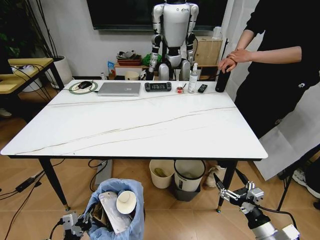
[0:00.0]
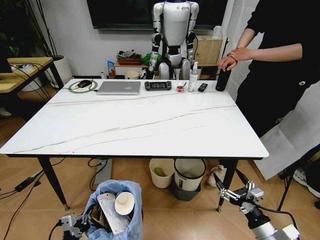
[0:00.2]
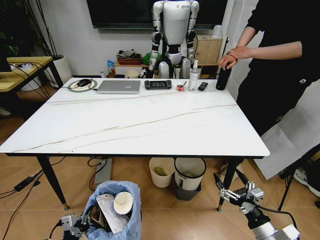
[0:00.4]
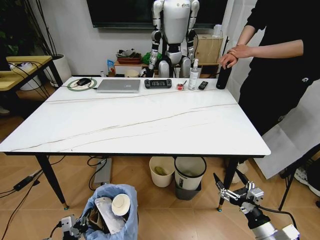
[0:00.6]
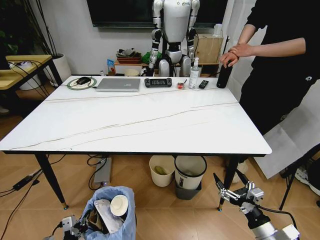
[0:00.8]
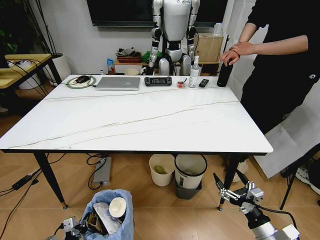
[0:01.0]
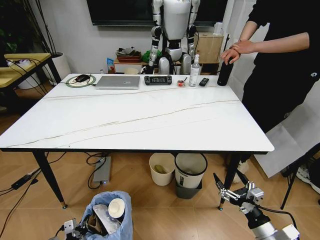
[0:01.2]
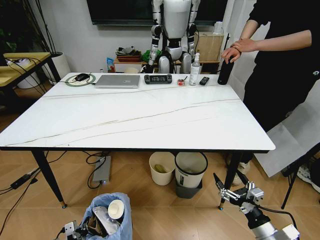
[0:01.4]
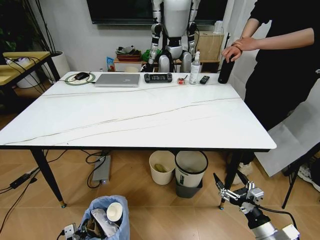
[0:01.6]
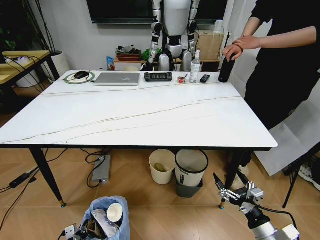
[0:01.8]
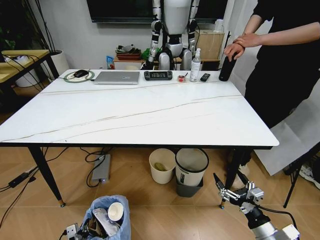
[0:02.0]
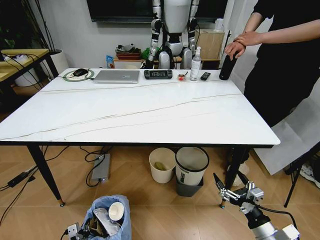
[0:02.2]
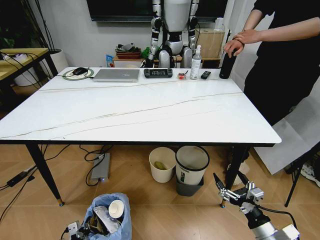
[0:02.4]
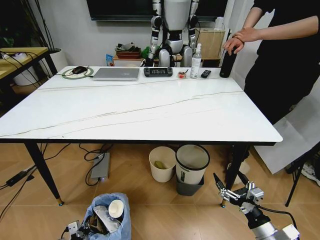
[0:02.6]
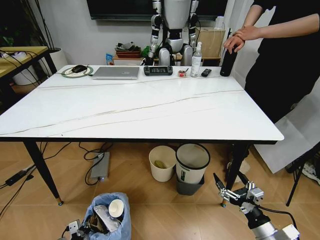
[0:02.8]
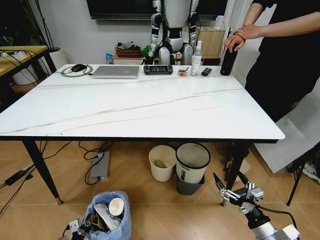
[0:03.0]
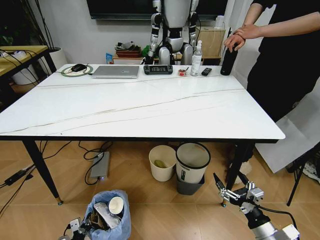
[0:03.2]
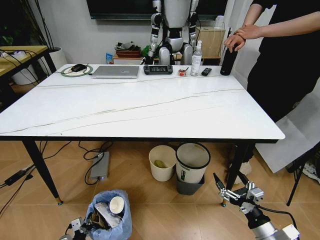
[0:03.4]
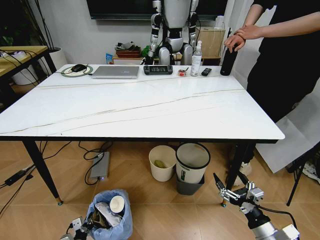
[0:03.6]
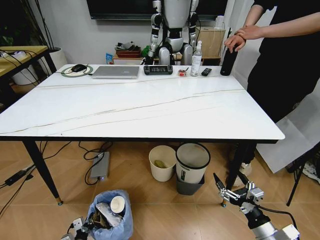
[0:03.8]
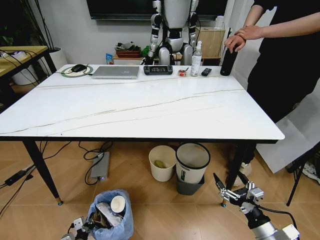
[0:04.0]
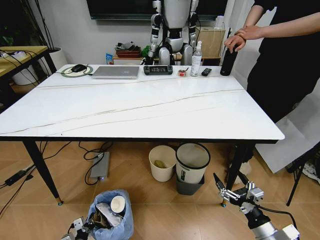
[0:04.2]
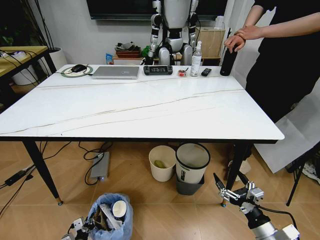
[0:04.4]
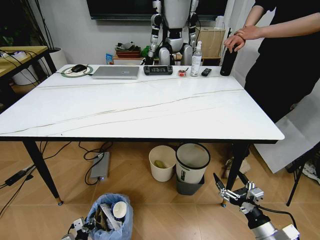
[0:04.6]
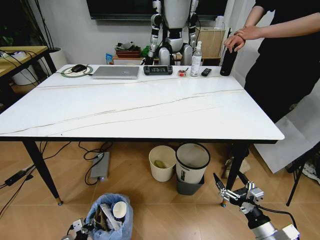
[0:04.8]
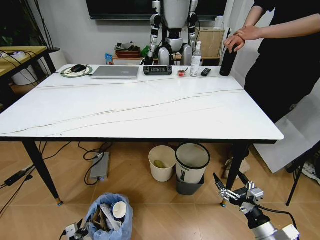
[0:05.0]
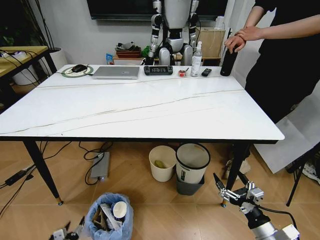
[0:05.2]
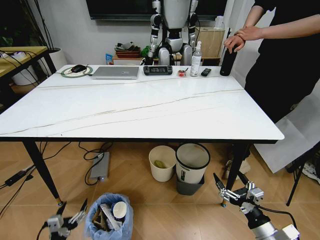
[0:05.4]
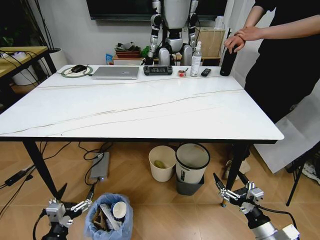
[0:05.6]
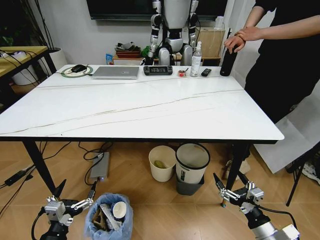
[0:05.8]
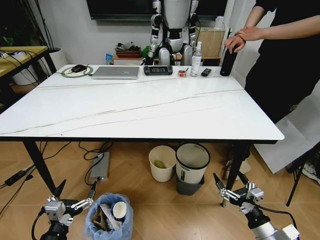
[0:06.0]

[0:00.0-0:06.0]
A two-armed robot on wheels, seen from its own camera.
Task of the whole recording: Pick up the trash bin and place the trash from the table into it.
0:00.0 to 0:01.6: The left gripper heads downward, covering about 15 cm.
0:03.0 to 0:04.4: The grippers make only small movements.
0:04.4 to 0:06.0: The left gripper heads upward, covering roughly 30 cm, and opens up.

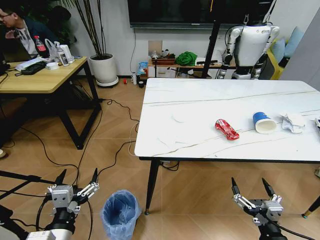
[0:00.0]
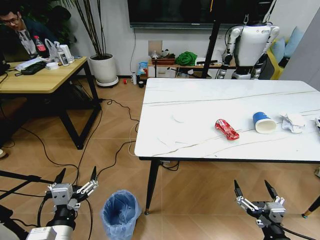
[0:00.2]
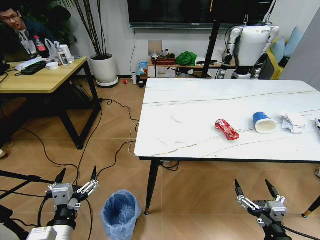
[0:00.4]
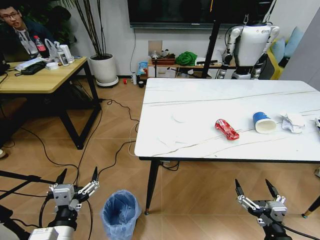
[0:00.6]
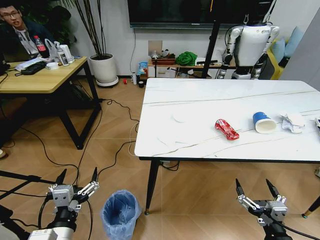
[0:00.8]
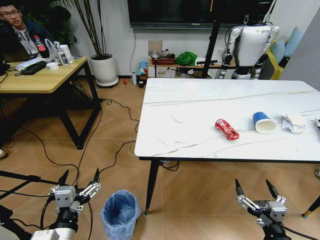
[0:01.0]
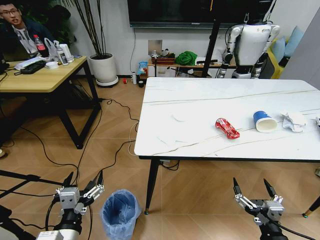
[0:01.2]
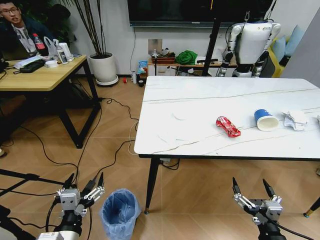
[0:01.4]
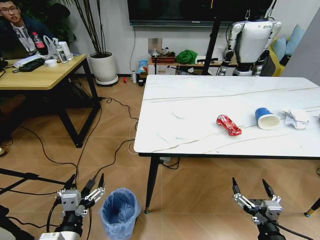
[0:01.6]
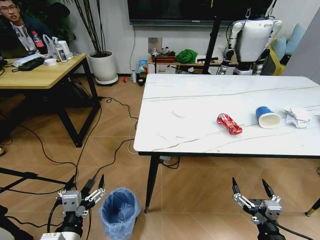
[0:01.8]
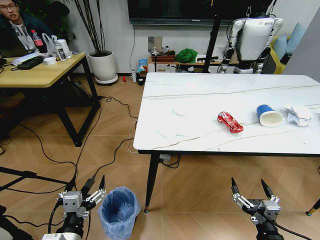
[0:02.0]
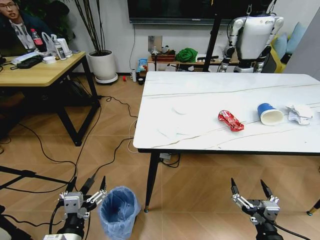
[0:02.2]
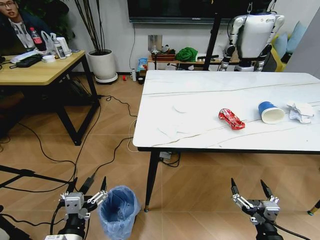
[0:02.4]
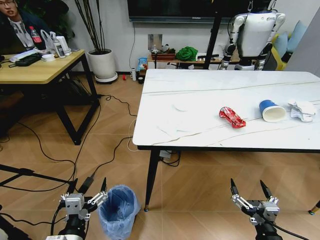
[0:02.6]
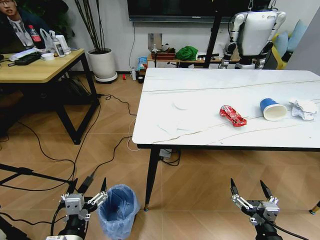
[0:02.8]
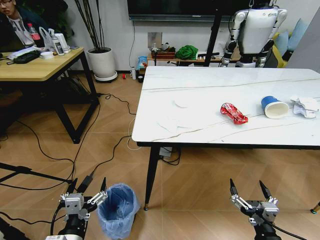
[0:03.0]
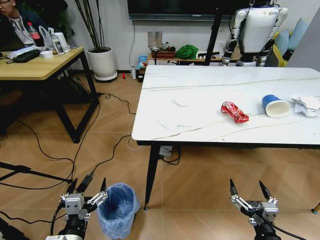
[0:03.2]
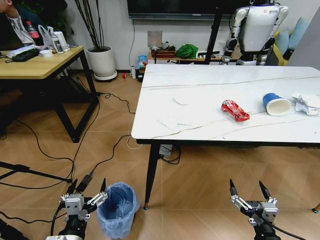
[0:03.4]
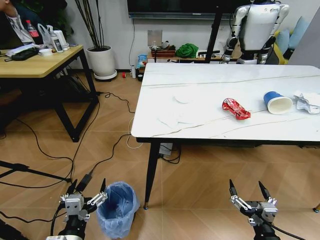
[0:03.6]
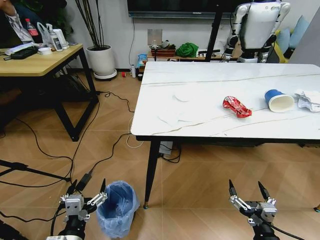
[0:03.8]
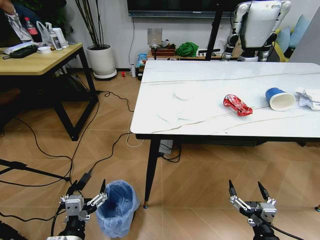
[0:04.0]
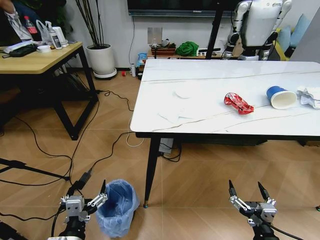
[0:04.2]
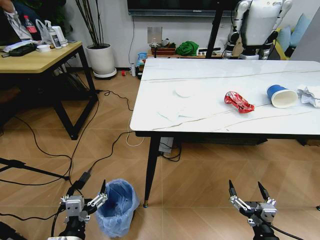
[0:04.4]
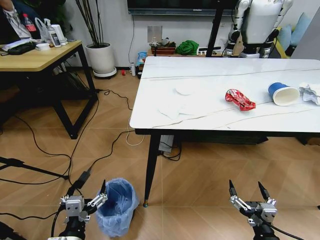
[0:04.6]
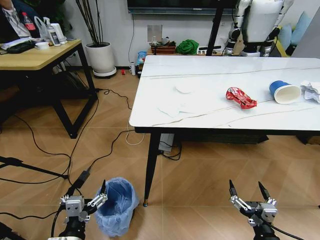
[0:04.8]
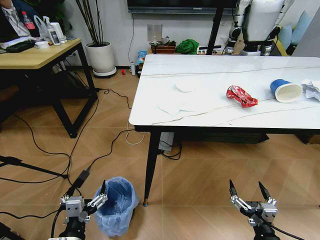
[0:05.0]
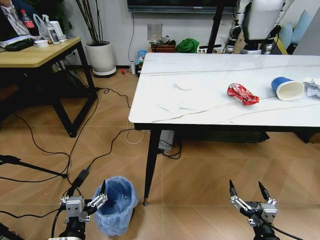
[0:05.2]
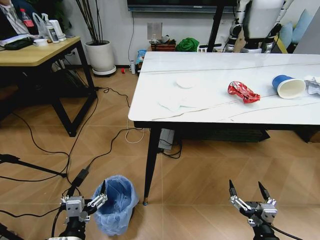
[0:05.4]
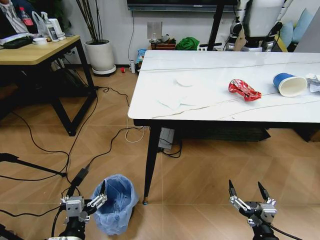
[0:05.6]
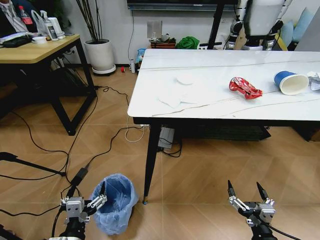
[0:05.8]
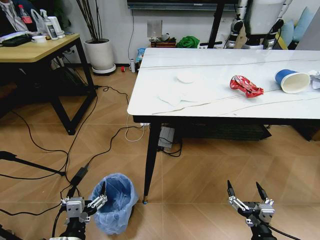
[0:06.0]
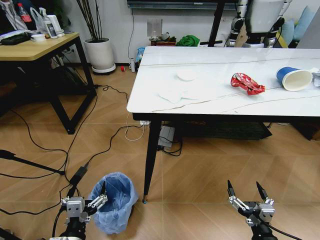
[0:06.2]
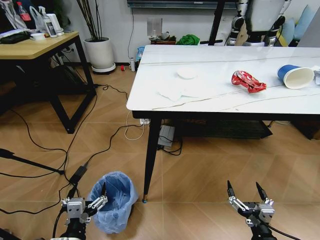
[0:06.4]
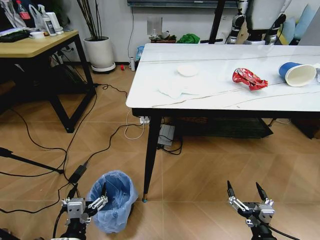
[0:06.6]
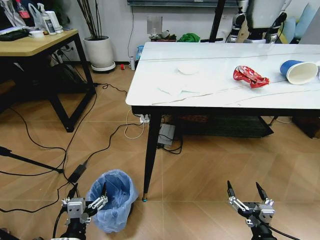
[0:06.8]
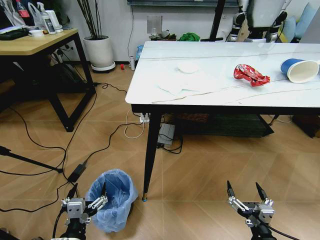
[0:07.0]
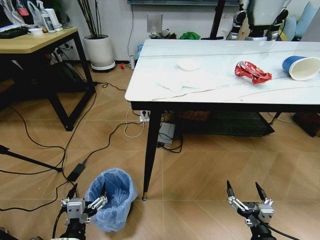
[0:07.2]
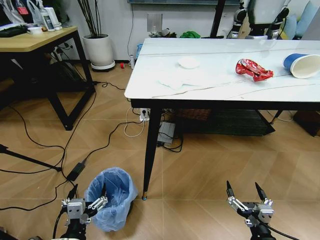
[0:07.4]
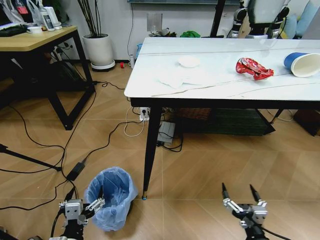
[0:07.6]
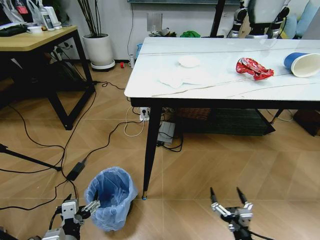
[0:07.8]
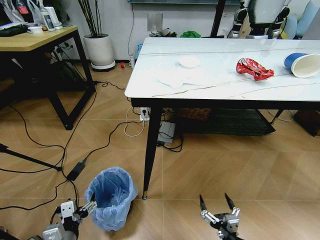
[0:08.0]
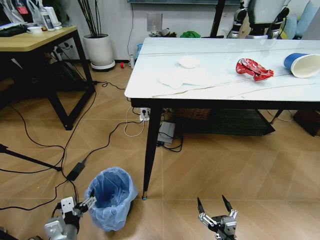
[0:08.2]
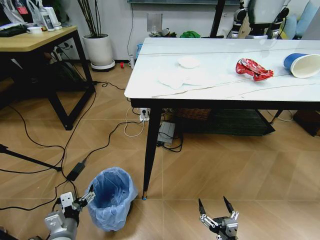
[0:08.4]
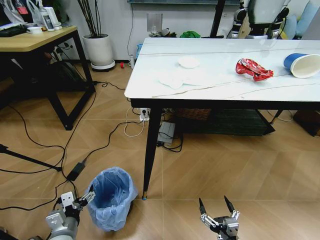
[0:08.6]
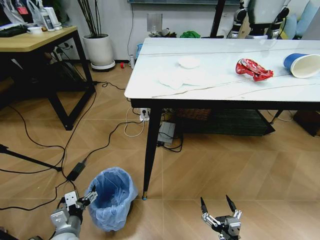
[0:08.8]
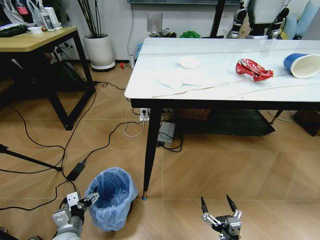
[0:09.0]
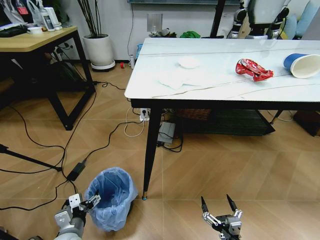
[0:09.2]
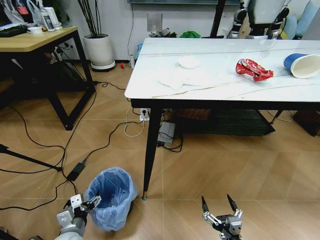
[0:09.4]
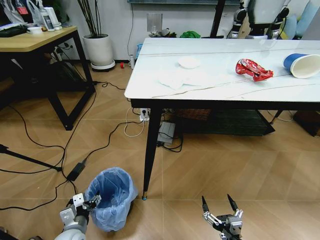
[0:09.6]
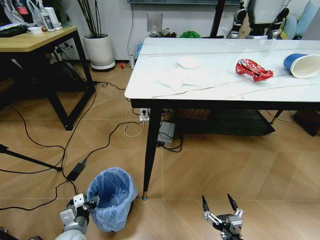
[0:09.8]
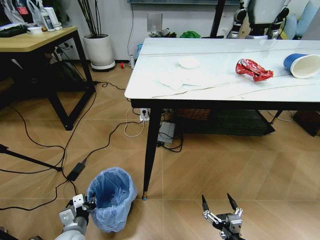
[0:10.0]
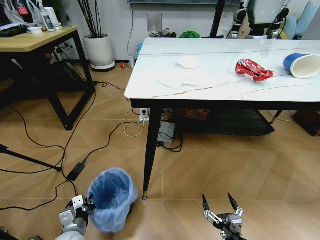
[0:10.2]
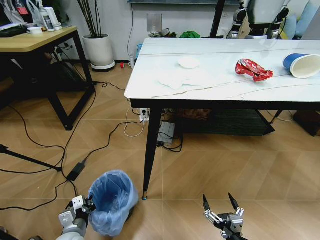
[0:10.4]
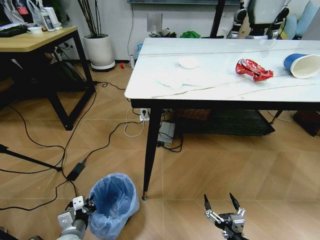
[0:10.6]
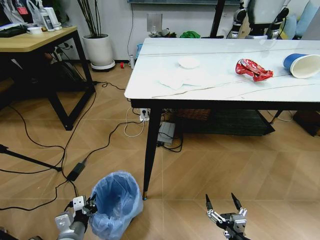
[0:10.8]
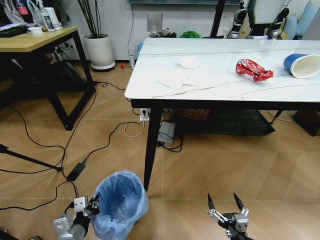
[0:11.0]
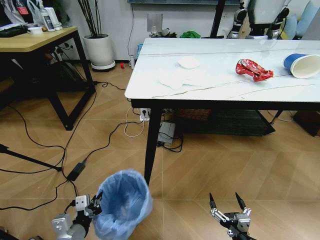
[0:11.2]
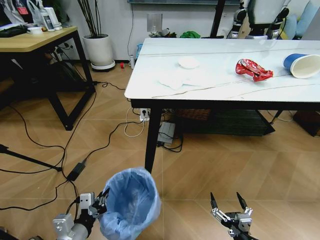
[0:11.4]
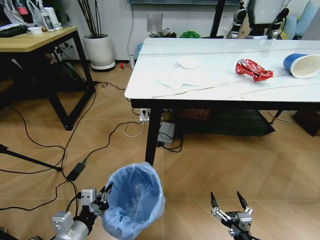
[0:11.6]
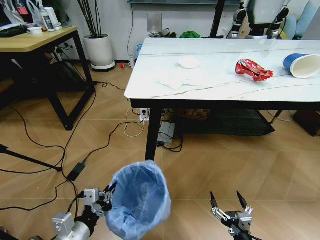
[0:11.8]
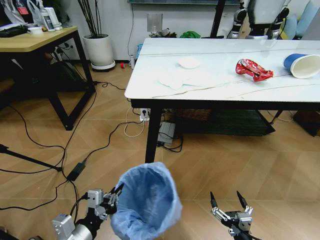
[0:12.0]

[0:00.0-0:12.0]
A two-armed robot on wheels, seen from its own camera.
Task of the whole recording: Pick up the trash bin and place the trash from the table into it.
0:07.6 to 0:09.0: The right gripper ends up some 5 cm from where it was; the left gripper moves forward, downward and to the left, some 15 cm.
0:09.0 to 0:10.4: The left gripper closes.
0:10.4 to 0:12.0: The left gripper travels upward and backward by approximately 15 cm.

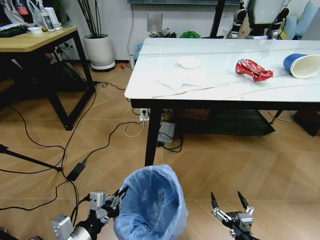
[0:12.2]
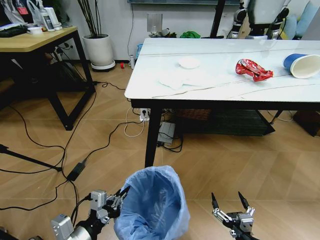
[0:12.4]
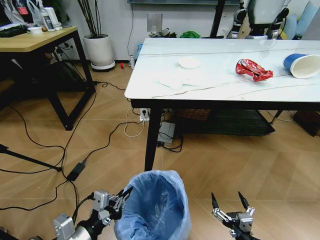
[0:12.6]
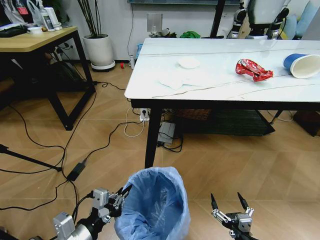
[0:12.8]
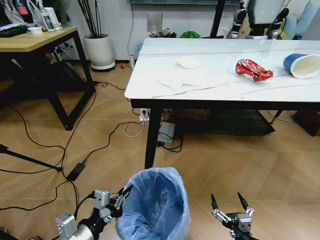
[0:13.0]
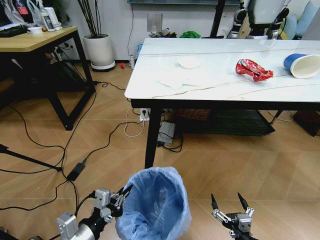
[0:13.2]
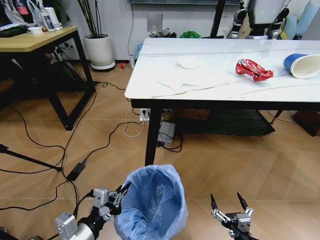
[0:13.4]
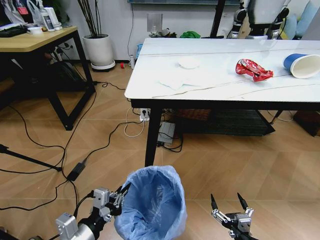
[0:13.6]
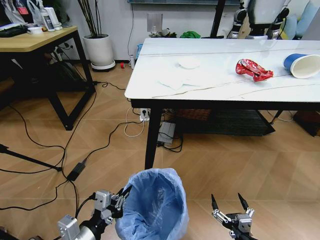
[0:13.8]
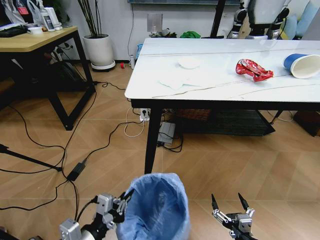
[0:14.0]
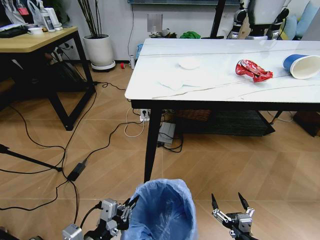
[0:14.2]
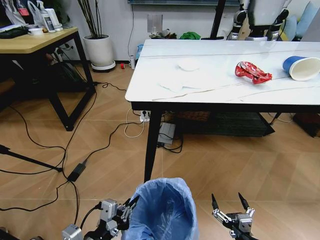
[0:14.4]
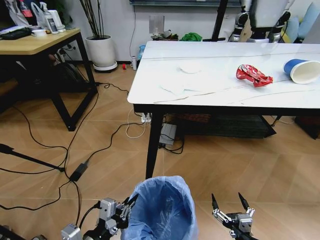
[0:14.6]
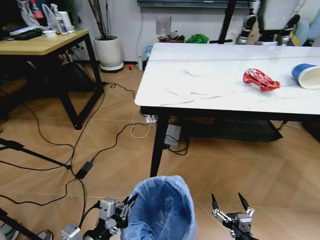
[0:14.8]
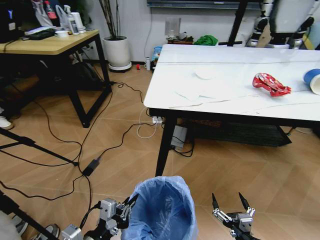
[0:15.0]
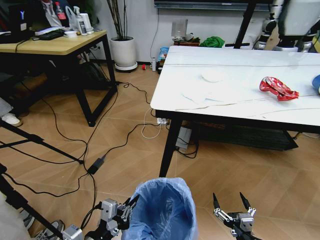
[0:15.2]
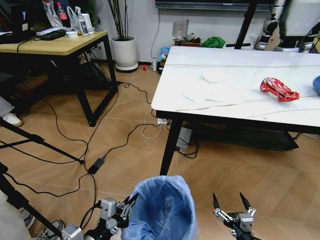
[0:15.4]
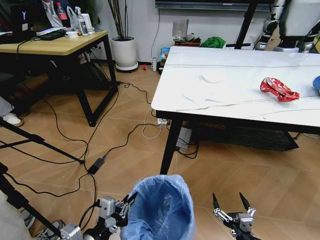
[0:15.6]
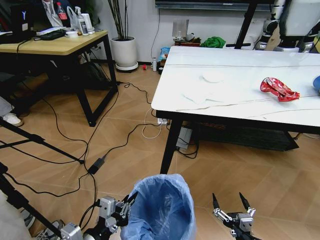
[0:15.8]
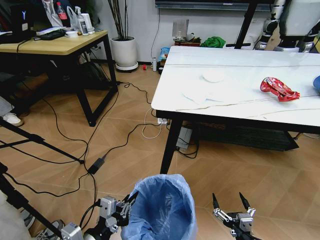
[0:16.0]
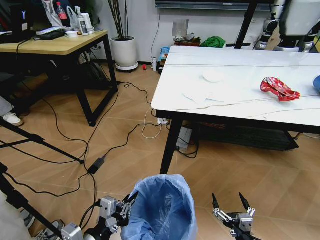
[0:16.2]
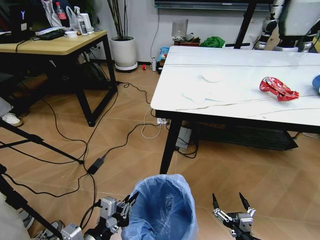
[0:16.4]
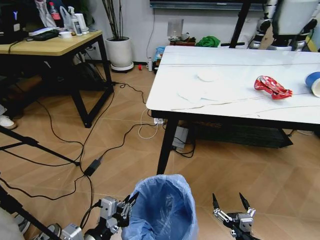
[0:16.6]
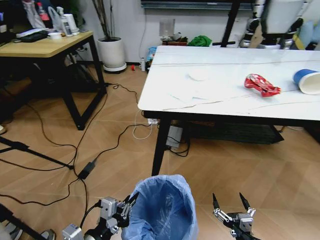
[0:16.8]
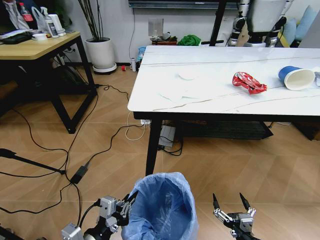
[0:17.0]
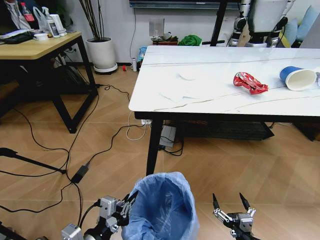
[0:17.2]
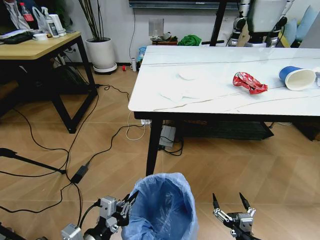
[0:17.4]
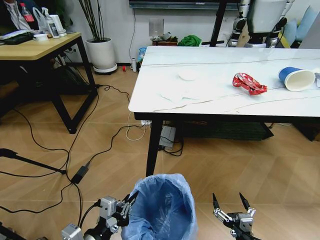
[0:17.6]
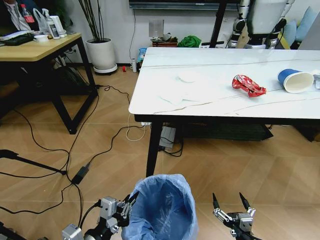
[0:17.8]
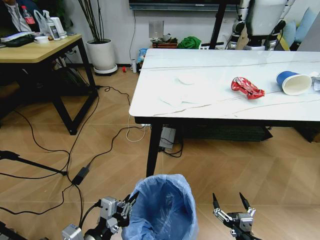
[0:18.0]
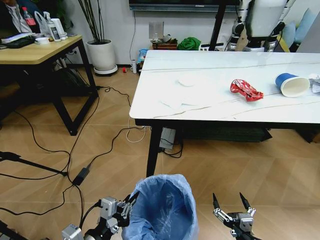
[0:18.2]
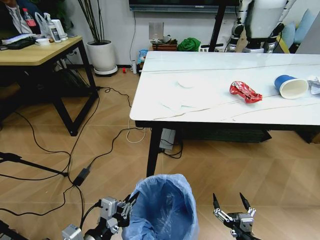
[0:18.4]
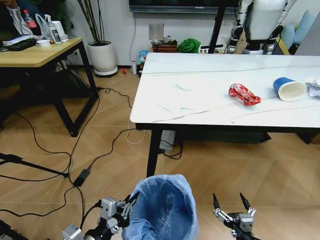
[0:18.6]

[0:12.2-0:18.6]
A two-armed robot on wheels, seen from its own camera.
Task of the whole recording: Pick up the trash bin and place the trash from the table into it.
0:12.2 to 0:13.8: The grippers move only a little.
